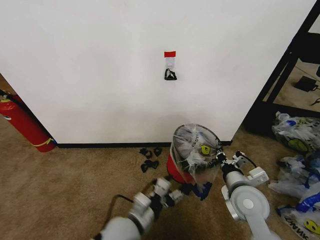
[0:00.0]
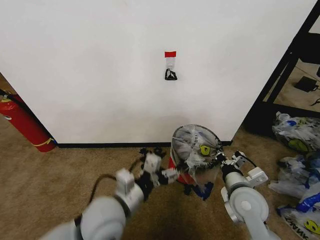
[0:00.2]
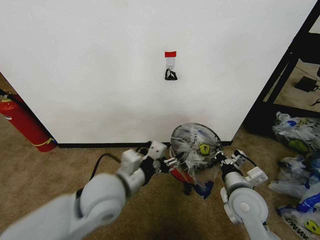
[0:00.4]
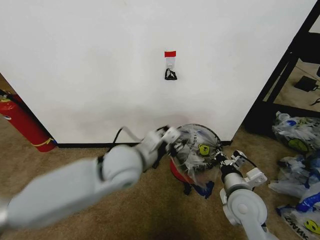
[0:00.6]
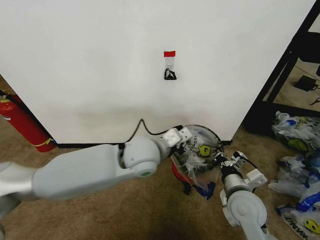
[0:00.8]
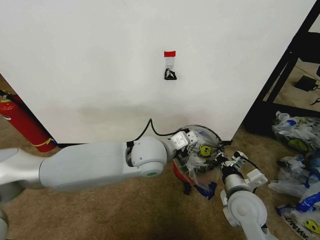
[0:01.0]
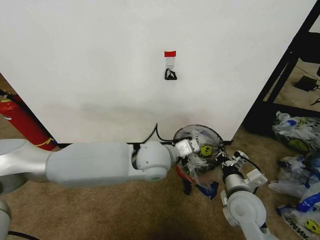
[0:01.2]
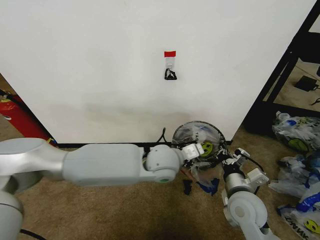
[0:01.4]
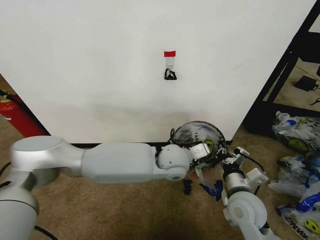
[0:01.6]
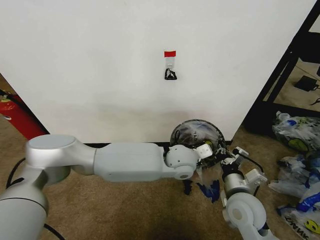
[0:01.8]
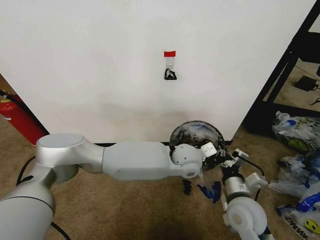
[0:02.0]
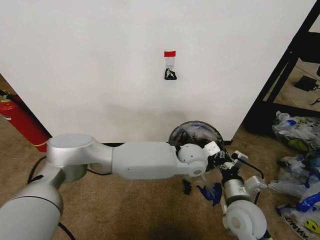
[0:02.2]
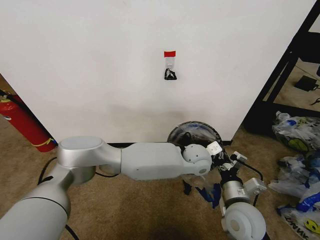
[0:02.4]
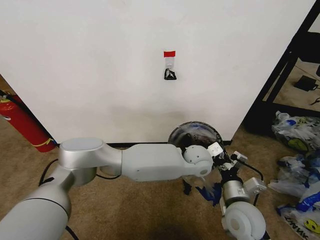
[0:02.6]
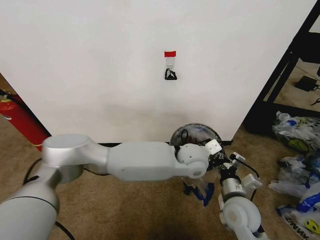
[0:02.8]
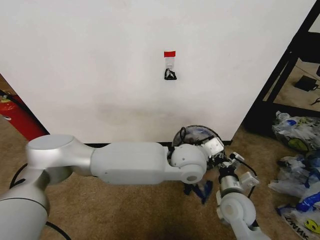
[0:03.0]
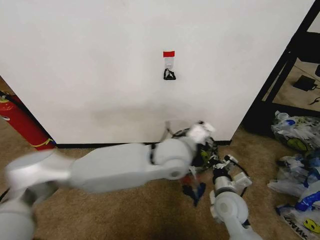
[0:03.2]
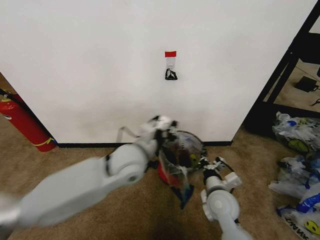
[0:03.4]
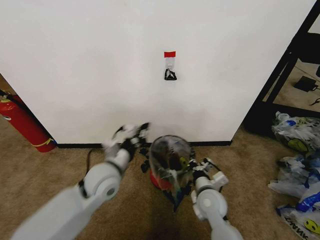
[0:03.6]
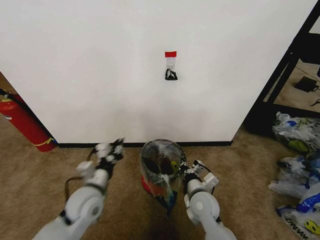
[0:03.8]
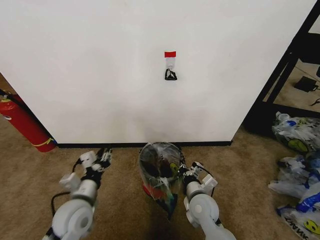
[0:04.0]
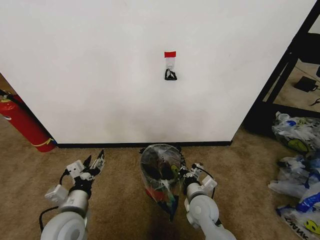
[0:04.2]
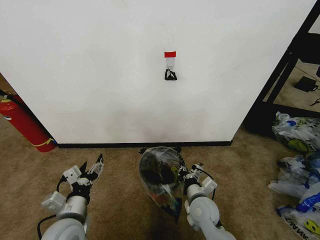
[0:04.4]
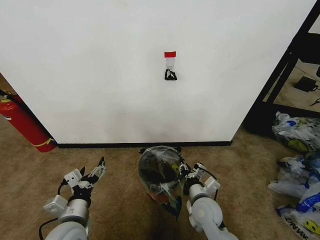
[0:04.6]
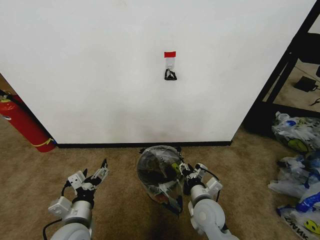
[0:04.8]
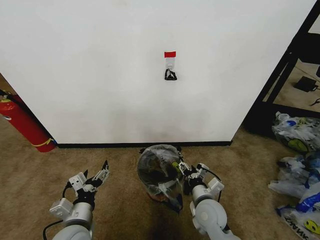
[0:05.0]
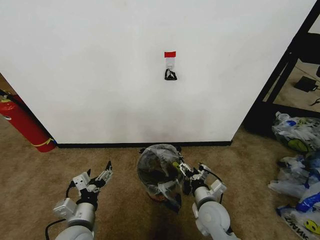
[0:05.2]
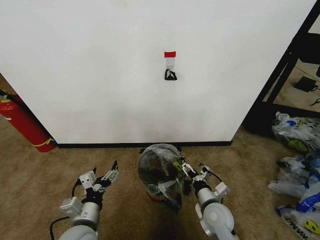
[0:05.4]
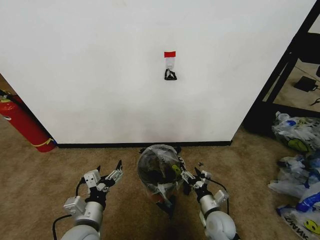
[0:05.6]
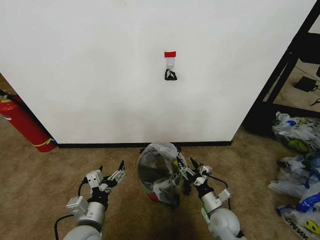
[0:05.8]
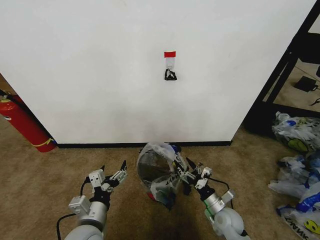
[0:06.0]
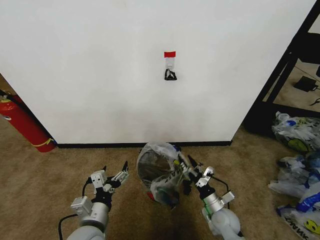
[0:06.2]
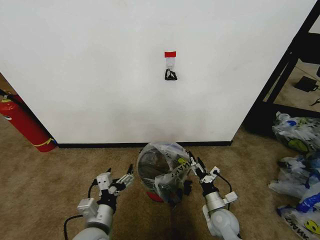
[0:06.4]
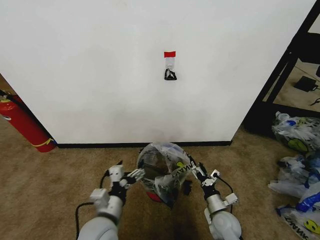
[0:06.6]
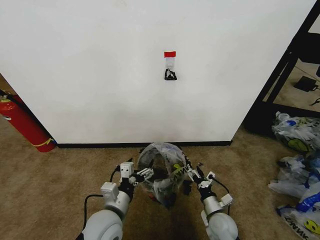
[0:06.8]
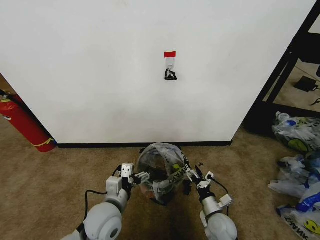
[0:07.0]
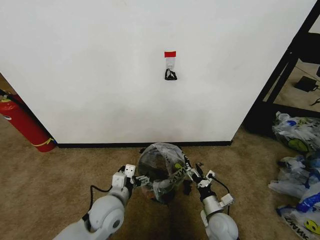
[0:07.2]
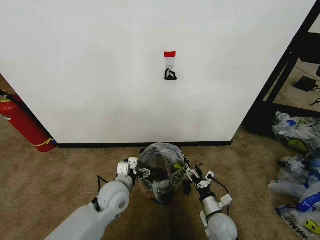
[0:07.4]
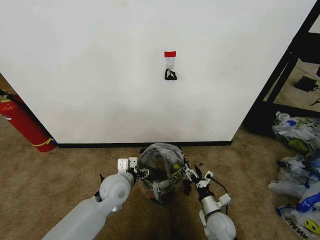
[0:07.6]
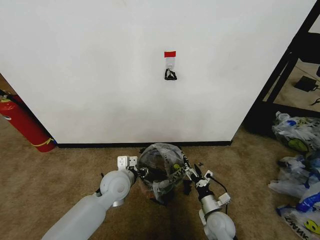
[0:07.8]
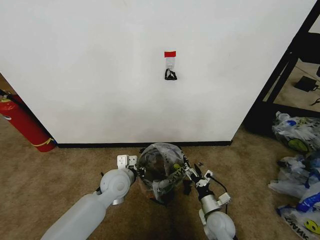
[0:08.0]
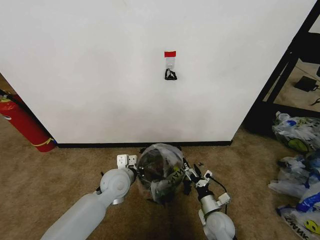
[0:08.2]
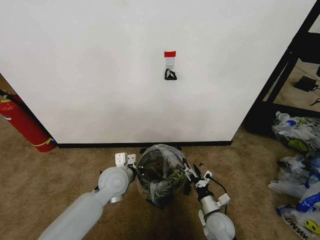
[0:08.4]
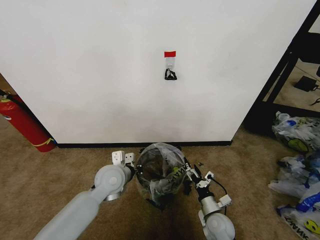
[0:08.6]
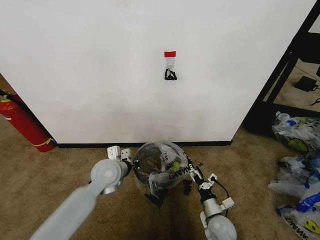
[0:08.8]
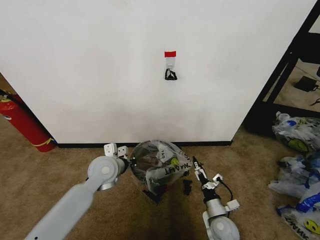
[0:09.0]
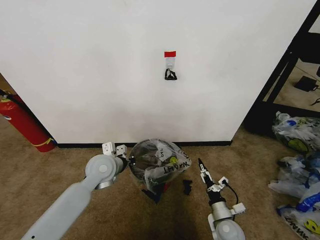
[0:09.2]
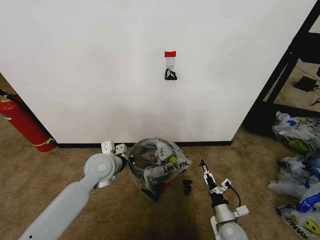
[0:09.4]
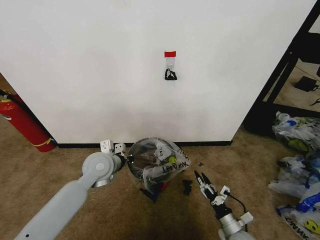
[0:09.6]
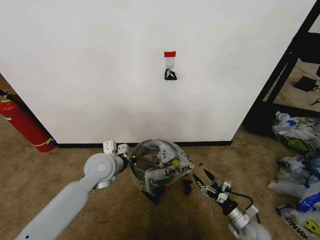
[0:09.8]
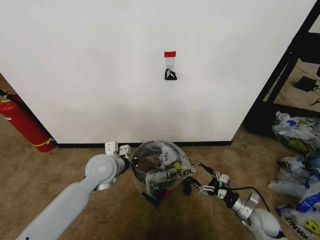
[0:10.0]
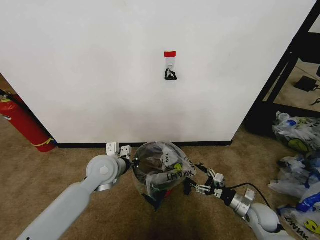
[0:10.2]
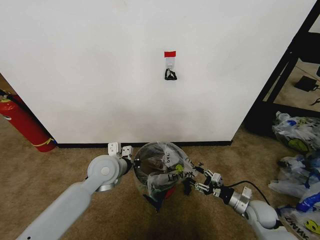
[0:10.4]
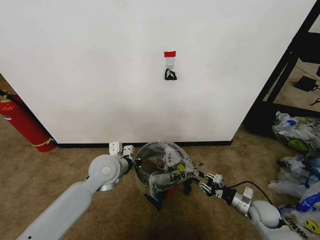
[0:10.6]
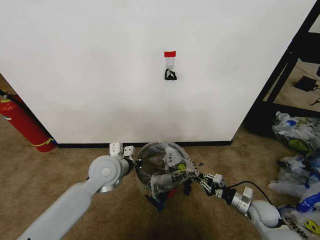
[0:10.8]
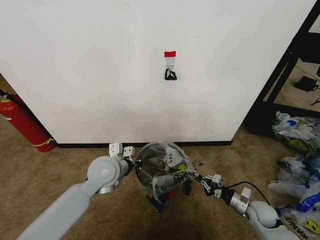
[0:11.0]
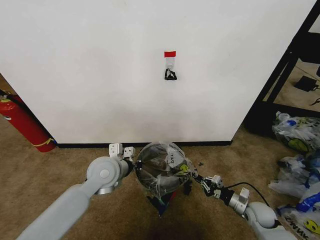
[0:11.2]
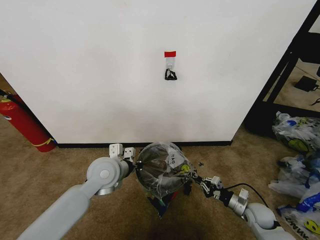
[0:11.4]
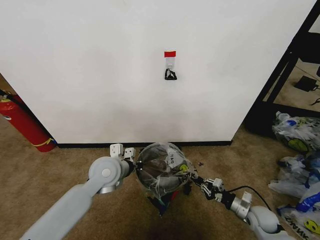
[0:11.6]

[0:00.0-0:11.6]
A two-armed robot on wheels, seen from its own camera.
Task of the whole recording: Pick up the garbage bag from the wall and place it over the trash bin.
0:00.0 to 0:01.4: The left gripper travels forward, upward and to the right by roughly 25 cm, and closes.
0:01.4 to 0:02.8: The left gripper travels to the right by some 10 cm.
0:02.8 to 0:04.4: The right gripper travels to the left and downward by some 10 cm, while the left gripper shifts some 40 cm to the left and backward, and opens up.
0:04.4 to 0:05.8: The right gripper travels to the right and downward by about 10 cm, and opens up.
0:05.8 to 0:07.2: The left gripper moves forward, approximately 10 cm.
0:07.2 to 0:08.8: The left gripper travels forward by roughly 10 cm, and closes.
0:08.8 to 0:10.2: The right gripper heads to the right, covering roughly 15 cm.
0:10.2 to 0:11.6: The right gripper closes.

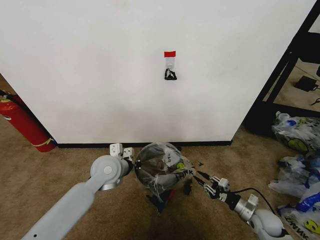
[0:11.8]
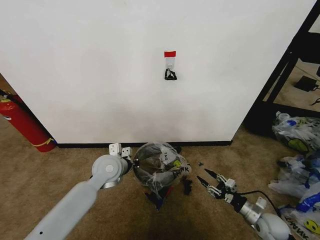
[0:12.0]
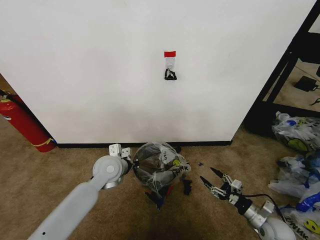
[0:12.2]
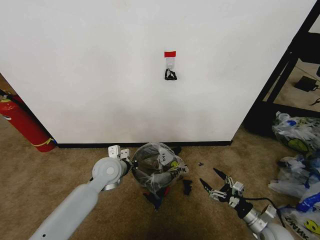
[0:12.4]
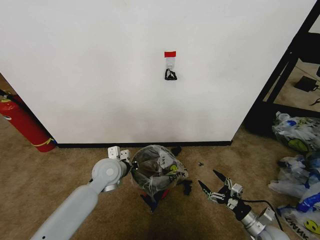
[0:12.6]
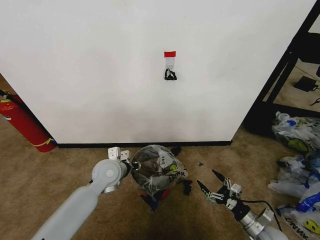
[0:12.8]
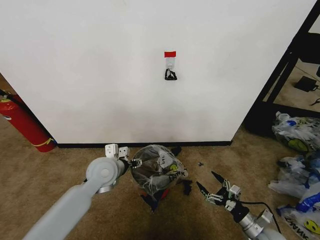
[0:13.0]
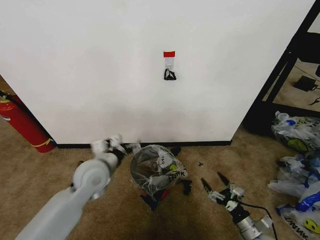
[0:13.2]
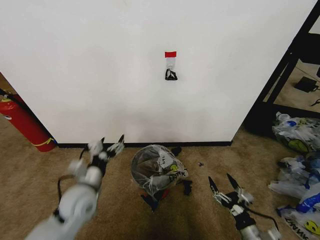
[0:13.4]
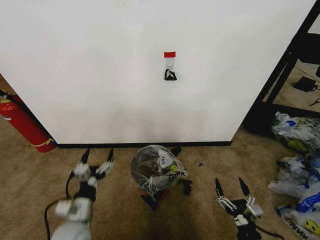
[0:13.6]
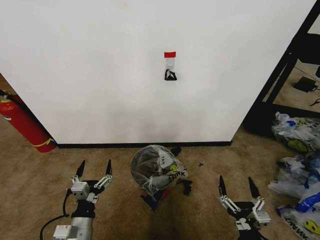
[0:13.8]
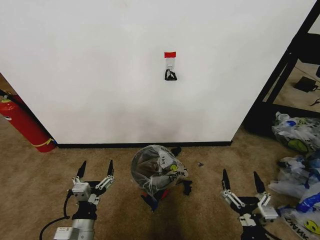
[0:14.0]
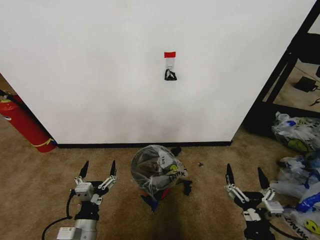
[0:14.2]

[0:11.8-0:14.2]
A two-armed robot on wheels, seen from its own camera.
Task of the whole recording: Pick up the garbage bag from the wall and place it over the trash bin.
0:11.8 to 0:13.0: The left gripper opens its fingers; the right gripper travels backward by about 5 cm, and opens up.
0:13.0 to 0:14.2: The right gripper goes about 20 cm upward, to the left and backward, while the left gripper moves backward and downward, about 25 cm.

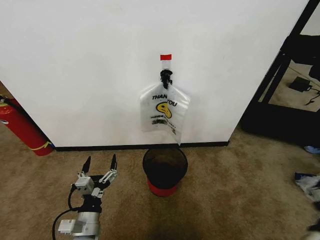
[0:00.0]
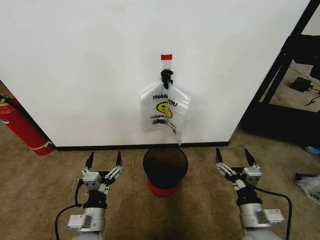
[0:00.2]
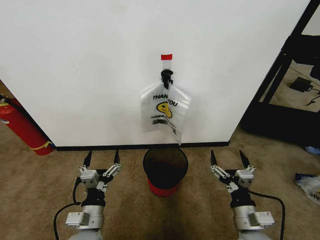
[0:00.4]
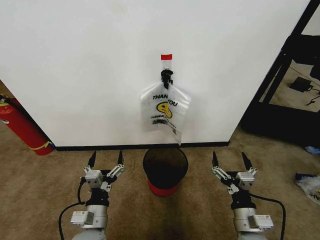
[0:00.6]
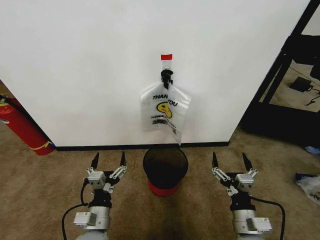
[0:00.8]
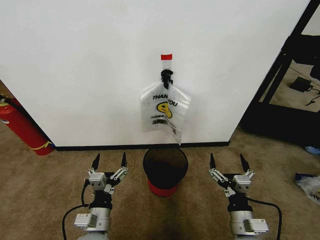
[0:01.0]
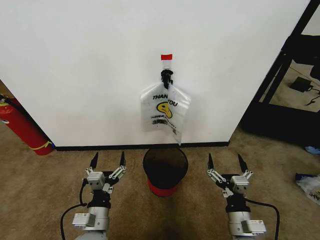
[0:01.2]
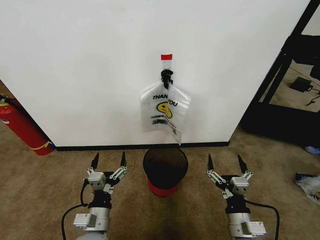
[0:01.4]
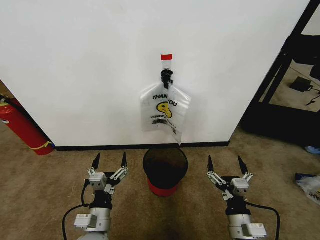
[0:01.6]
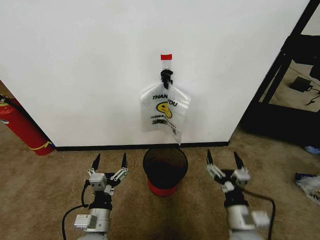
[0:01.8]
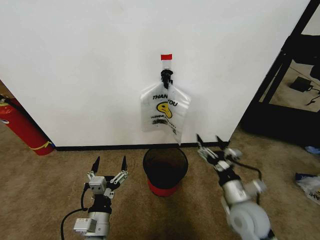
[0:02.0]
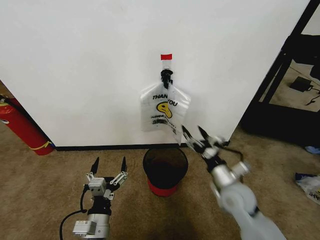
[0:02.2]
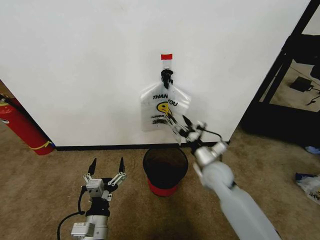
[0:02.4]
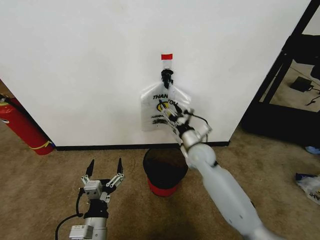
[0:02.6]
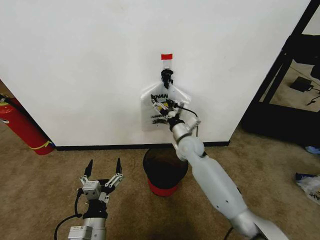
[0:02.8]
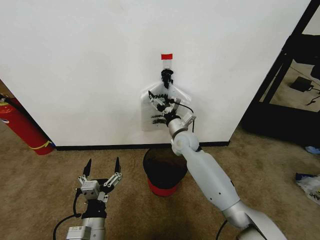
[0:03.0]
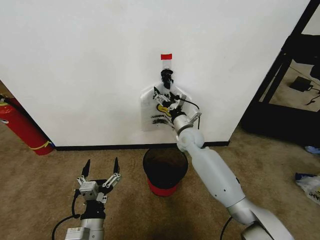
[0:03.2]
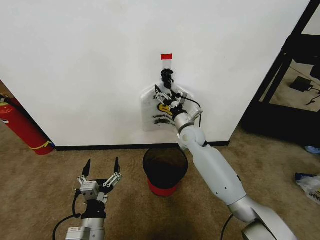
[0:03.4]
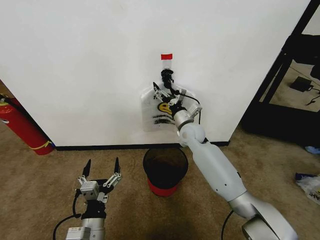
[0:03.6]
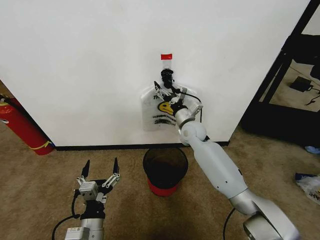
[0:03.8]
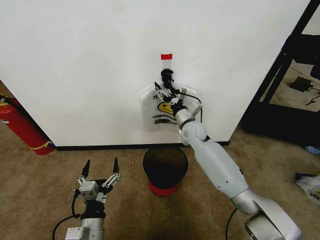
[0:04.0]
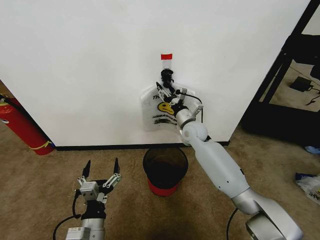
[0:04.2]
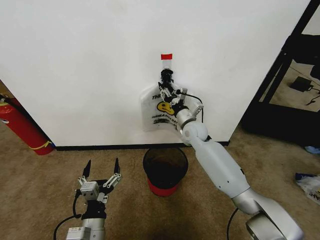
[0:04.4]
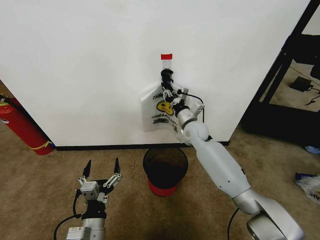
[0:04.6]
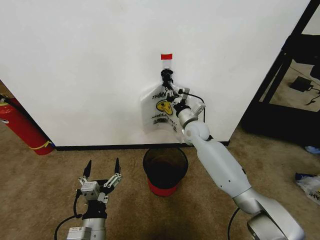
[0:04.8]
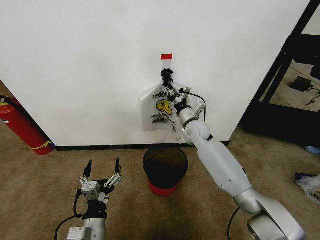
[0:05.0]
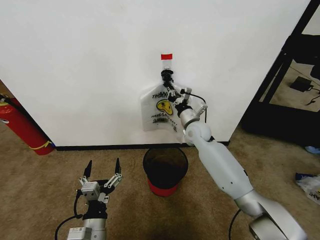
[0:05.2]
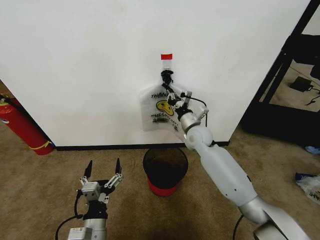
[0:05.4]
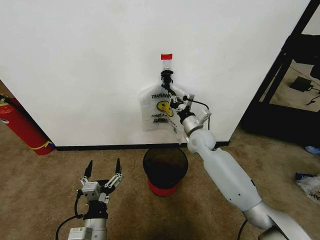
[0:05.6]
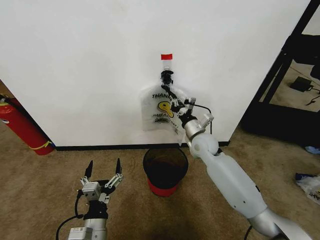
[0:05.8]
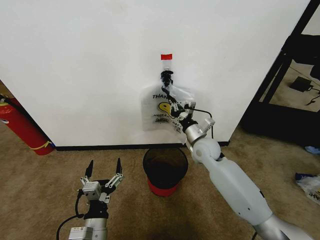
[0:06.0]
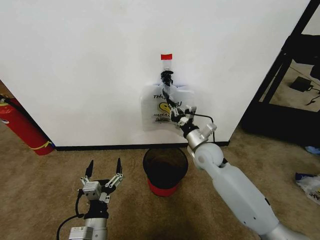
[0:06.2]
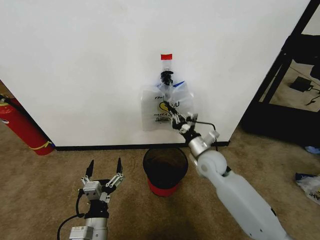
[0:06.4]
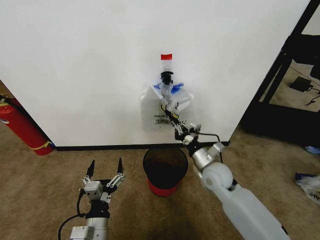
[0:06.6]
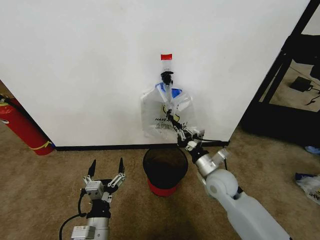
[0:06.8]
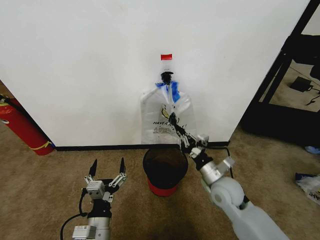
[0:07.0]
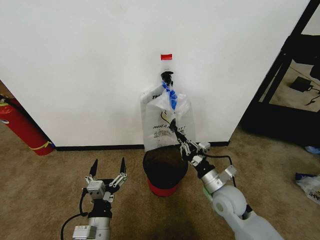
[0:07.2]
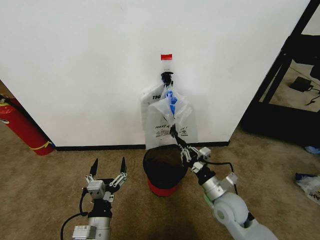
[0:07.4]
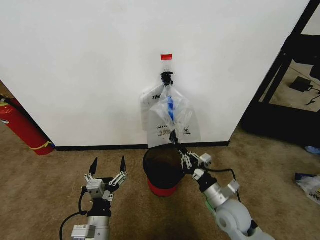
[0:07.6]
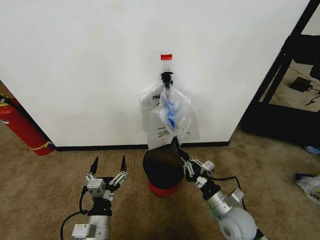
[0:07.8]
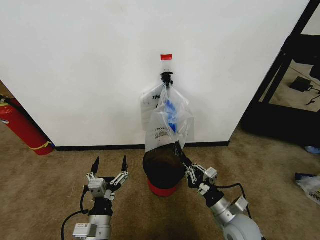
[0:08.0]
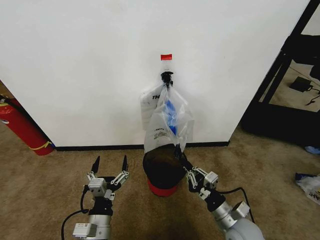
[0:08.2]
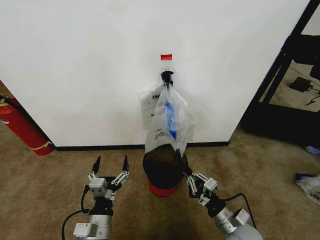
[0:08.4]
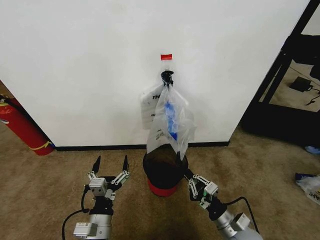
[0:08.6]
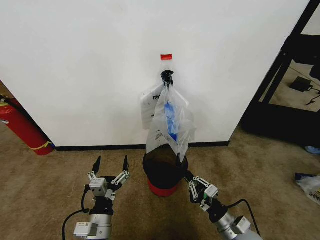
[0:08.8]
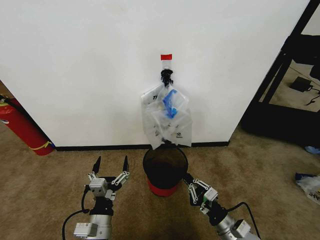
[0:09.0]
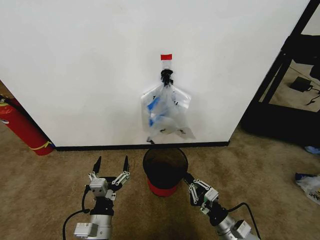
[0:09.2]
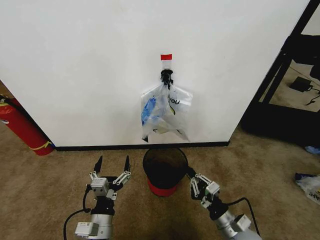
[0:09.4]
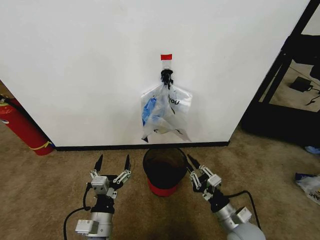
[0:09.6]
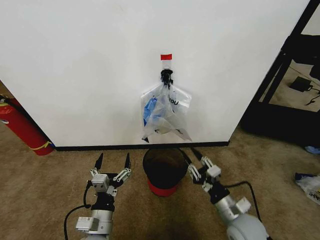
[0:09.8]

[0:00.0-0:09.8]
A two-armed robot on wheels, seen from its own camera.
Task of the whole recording: Pick up the garbage bag from the wall and place it over the trash bin.
0:01.4 to 0:02.8: The right gripper moves forward, approximately 30 cm.
0:02.8 to 0:04.2: The right gripper shifts by some 5 cm.
0:04.2 to 0:05.6: The right gripper closes up.
0:05.6 to 0:07.0: The right gripper shifts approximately 20 cm backward.
0:07.0 to 0:08.4: The right gripper heads backward and downward, covering approximately 10 cm.
0:08.4 to 0:09.8: The right gripper opens up.
